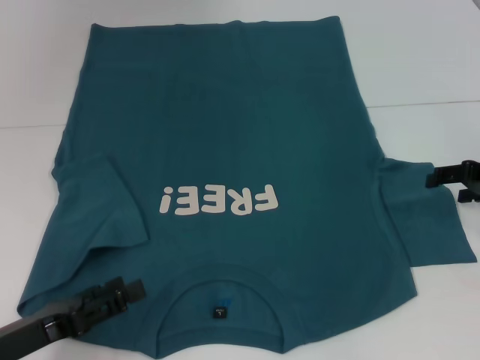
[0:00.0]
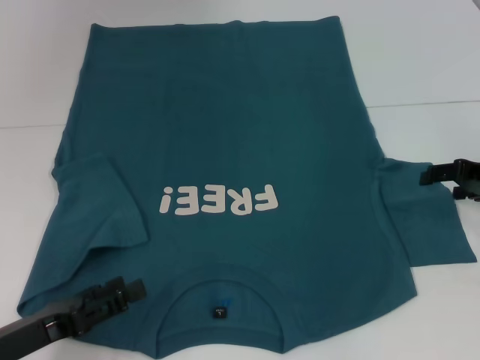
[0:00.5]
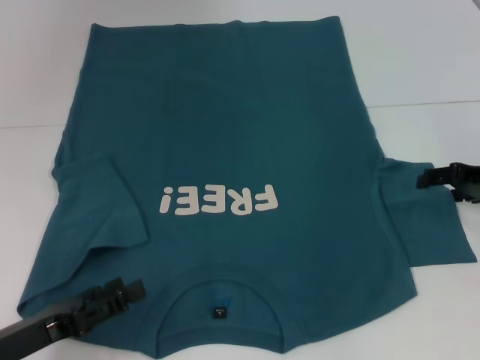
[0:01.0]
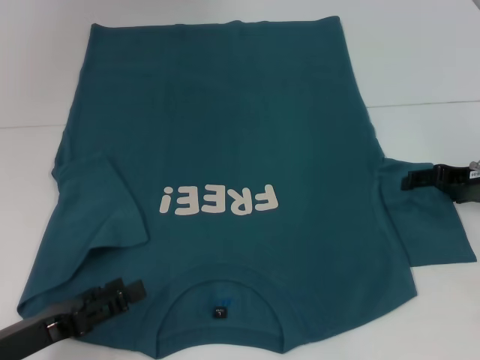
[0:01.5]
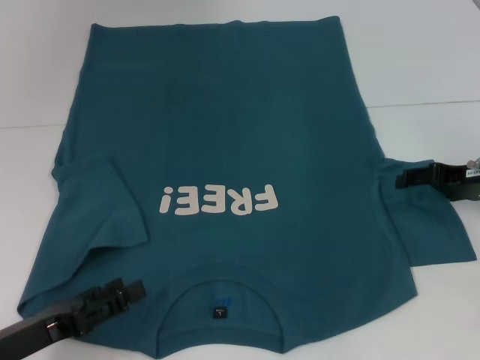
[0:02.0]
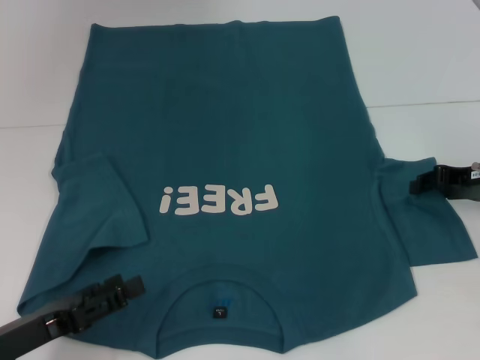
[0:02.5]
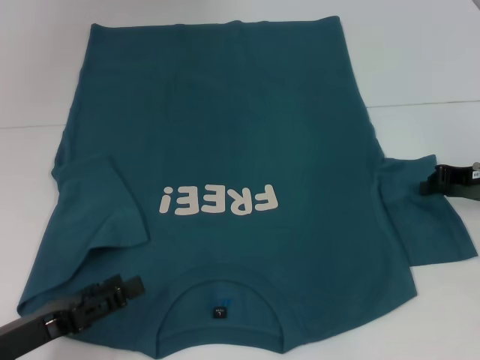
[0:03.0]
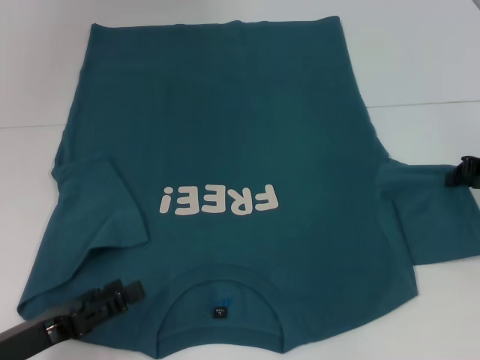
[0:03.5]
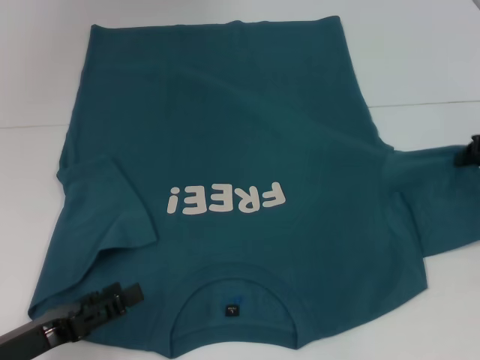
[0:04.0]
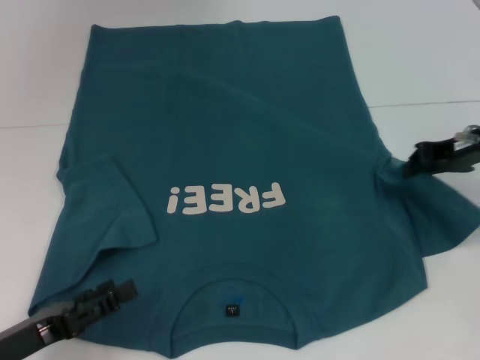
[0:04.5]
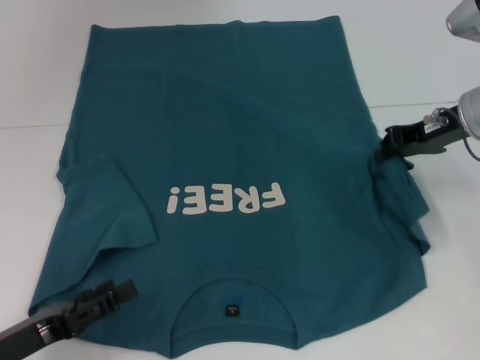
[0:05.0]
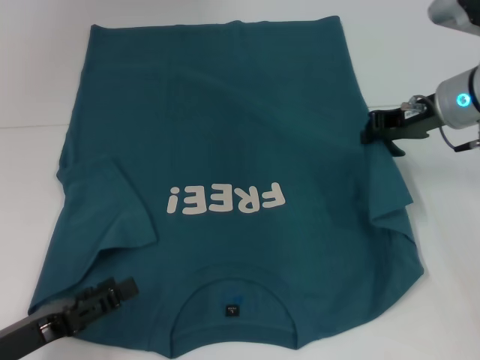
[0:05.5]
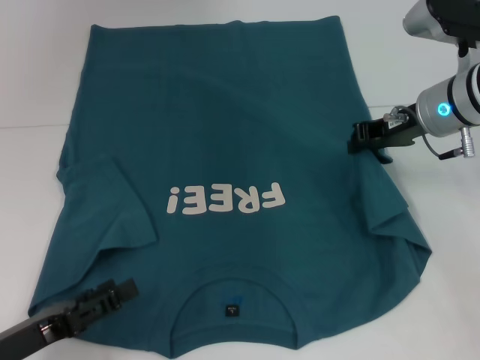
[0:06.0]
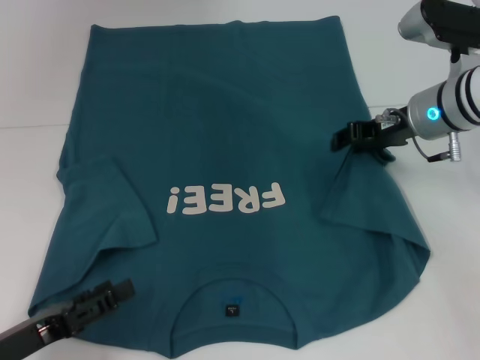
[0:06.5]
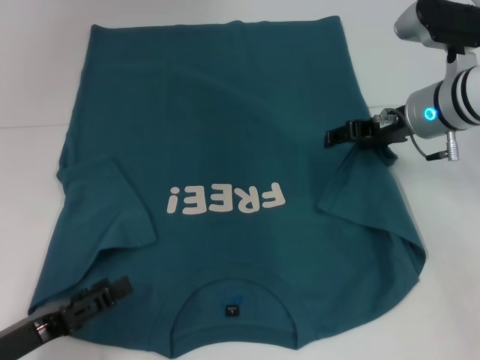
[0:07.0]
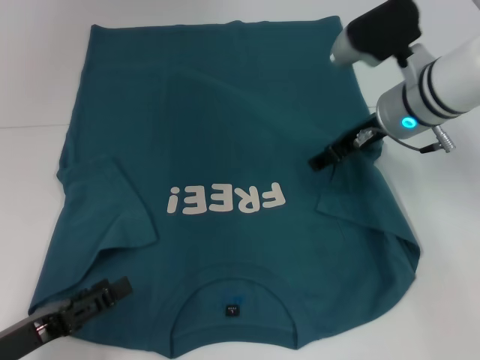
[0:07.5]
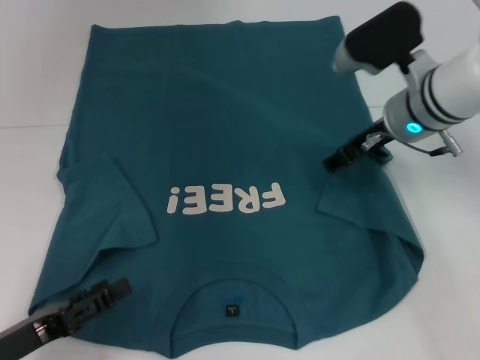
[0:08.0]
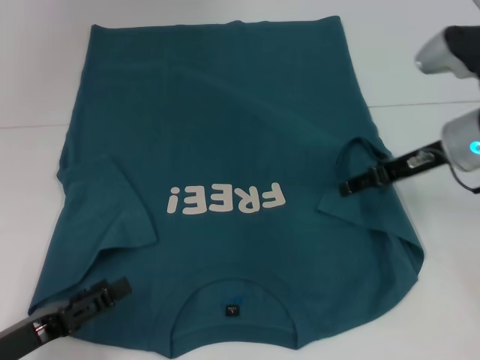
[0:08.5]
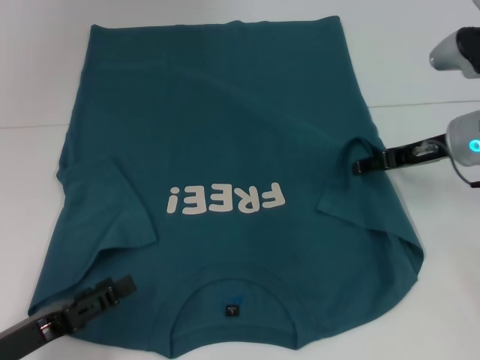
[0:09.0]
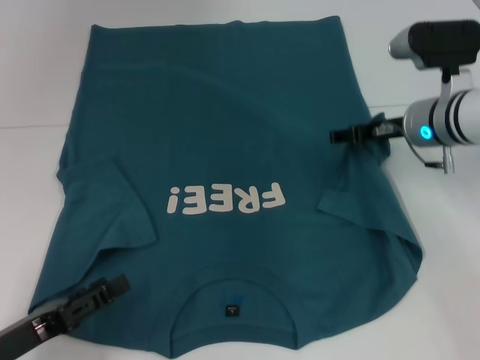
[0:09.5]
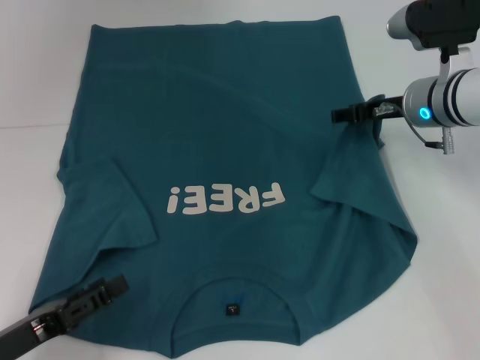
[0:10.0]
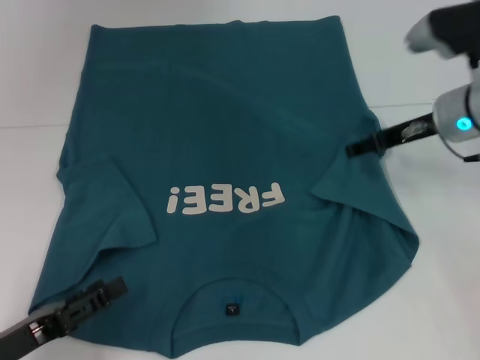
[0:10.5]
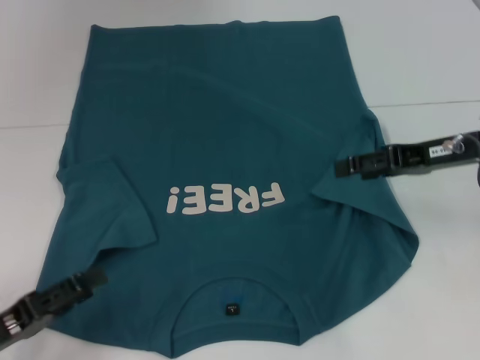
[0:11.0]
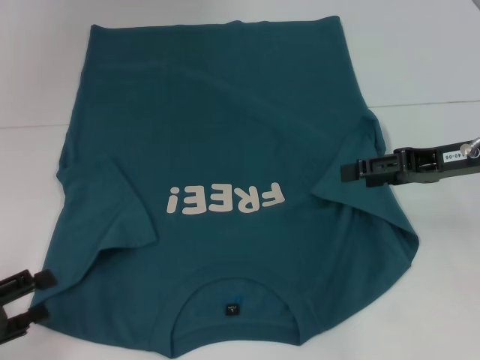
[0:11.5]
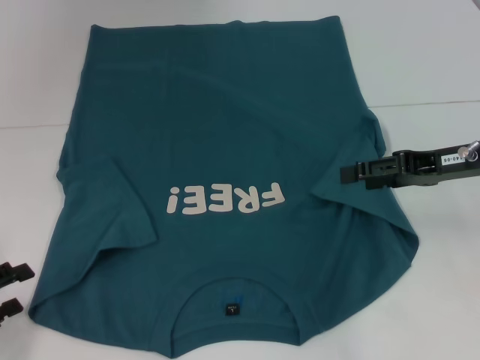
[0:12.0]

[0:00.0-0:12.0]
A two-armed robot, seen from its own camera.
Step, 0:00.0 to 0:10.0: Fold the bottom right sleeve to the right.
0:00.0 to 0:02.0: The grippers move only a little.
0:02.0 to 0:04.0: The right gripper closes.
0:04.0 to 0:06.0: The right gripper moves to the left, about 15 cm.
0:06.0 to 0:08.0: The right gripper opens its fingers.
0:10.0 to 0:12.0: The right gripper moves backward and to the right, some 10 cm. Meanwhile the left gripper shifts approximately 10 cm to the left.

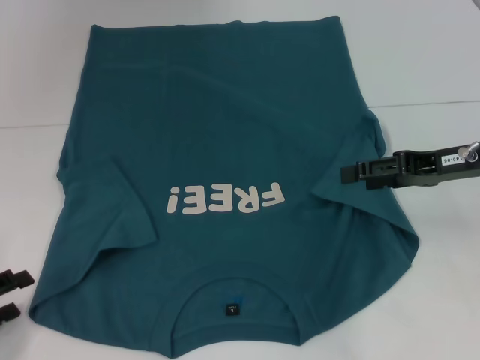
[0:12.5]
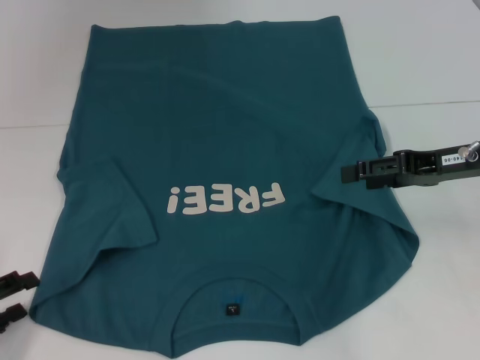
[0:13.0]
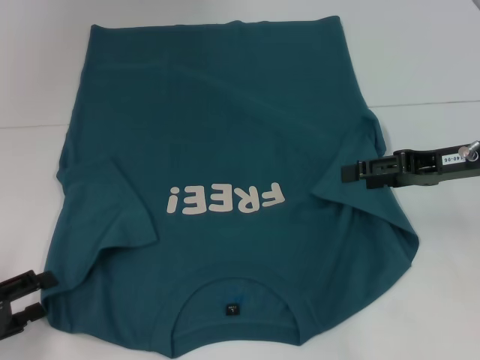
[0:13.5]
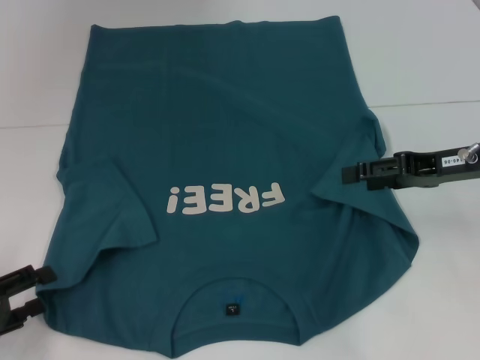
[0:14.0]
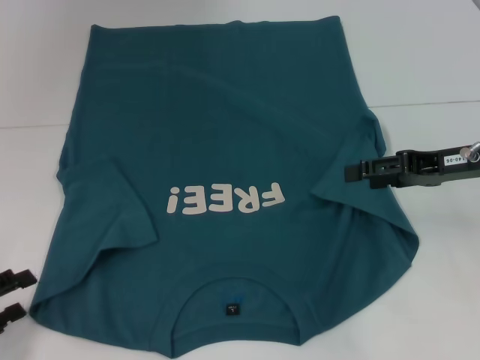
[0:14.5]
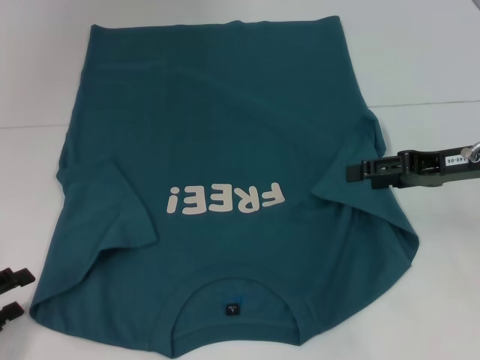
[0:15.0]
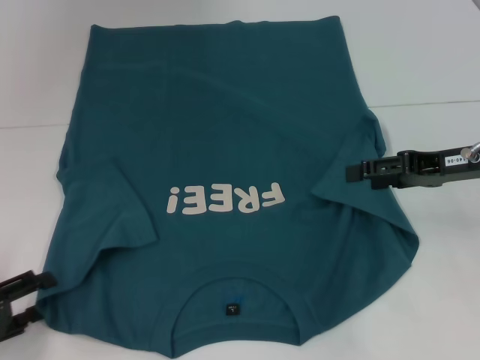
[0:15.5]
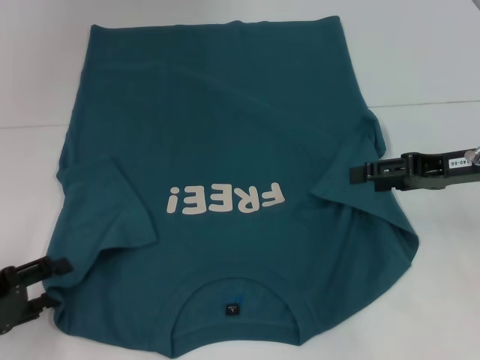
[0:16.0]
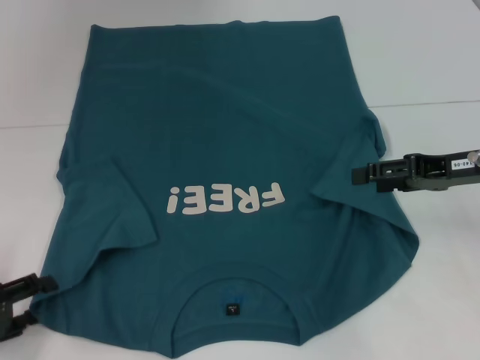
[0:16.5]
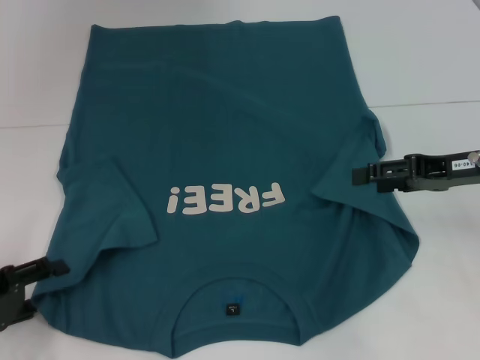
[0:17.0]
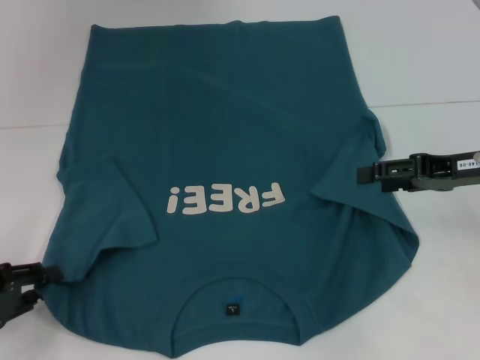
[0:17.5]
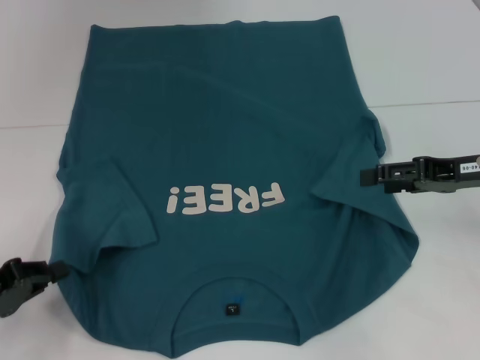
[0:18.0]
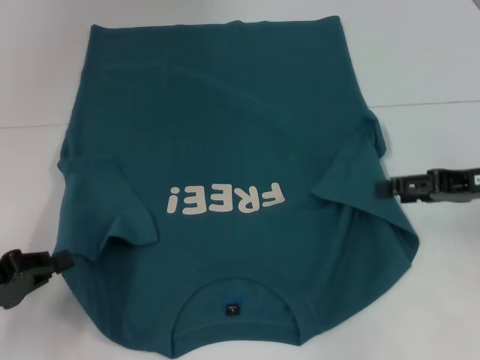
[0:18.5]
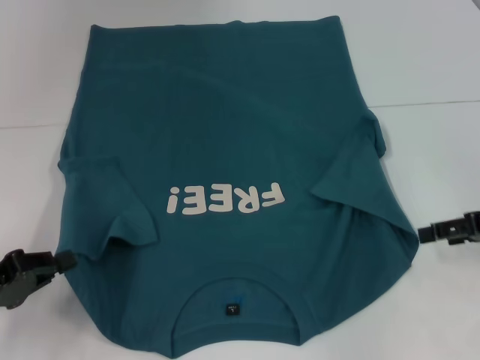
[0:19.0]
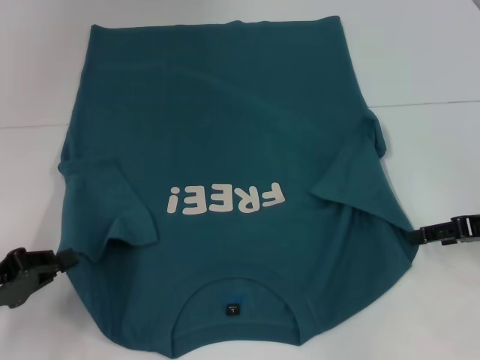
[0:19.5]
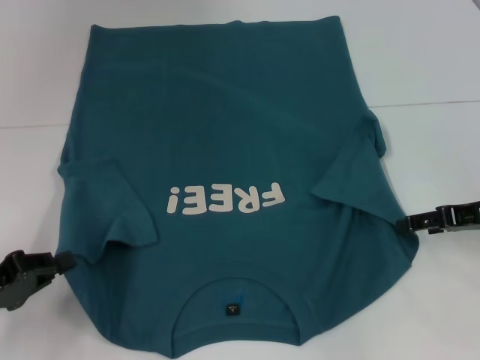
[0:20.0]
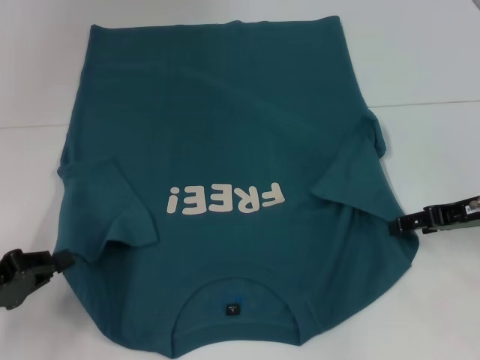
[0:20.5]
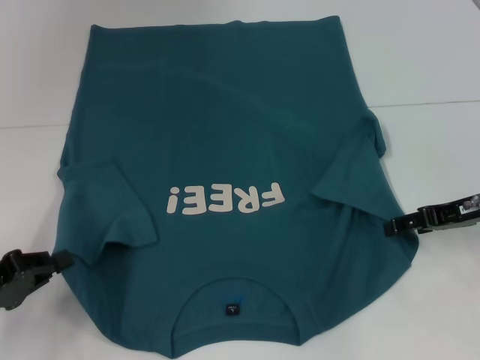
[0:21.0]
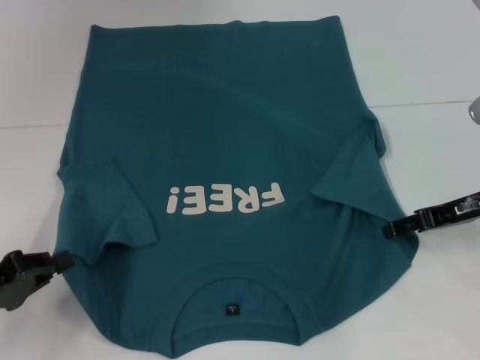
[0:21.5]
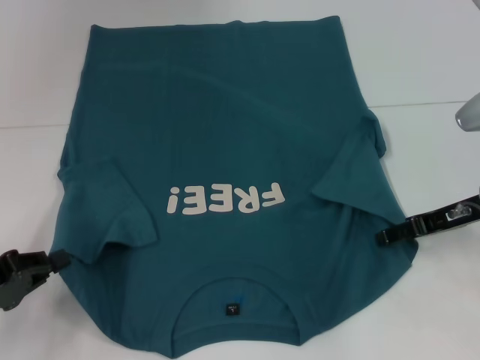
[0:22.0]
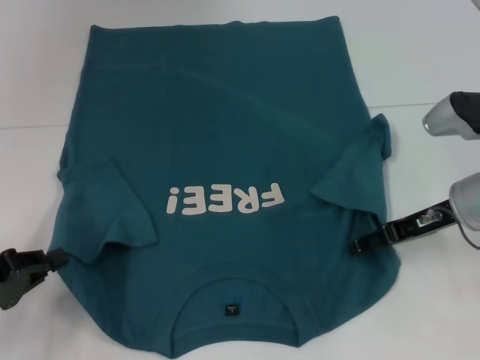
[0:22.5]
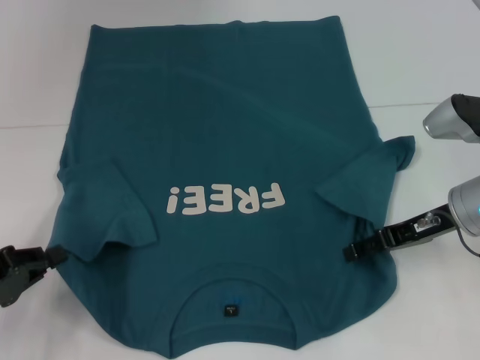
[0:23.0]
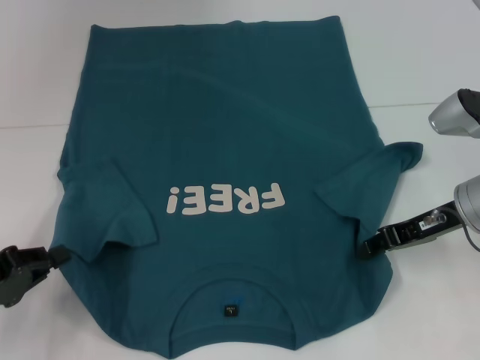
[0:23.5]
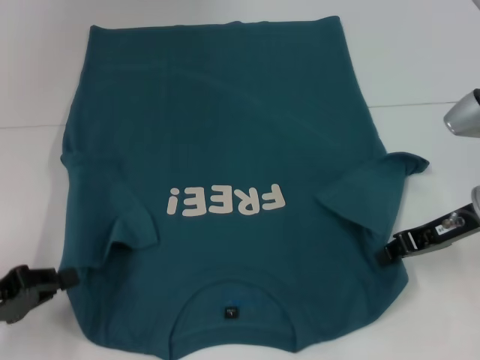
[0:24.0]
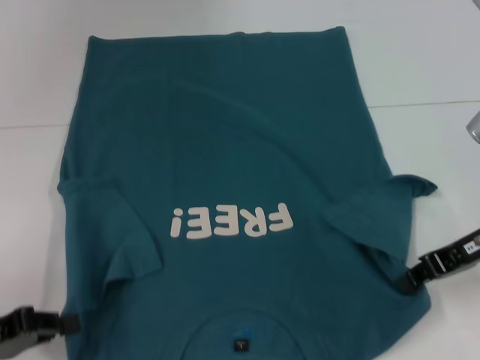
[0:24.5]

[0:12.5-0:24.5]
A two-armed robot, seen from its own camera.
Step, 0:12.5 to 0:18.0: Grab the bottom left corner with your left hand.
Step, 0:18.5 to 0:23.5: Grab the bottom right corner with your right hand.
0:14.5 to 0:16.5: The grippers make only small movements.
0:16.5 to 0:18.5: The left gripper closes up.
0:18.5 to 0:20.5: There are only small adjustments of the grippers.
0:20.5 to 0:22.5: The right gripper heads to the left, covering some 5 cm.
0:22.5 to 0:24.5: The right gripper shifts by approximately 5 cm, and closes up.

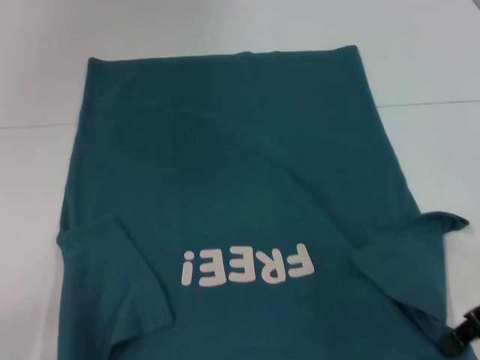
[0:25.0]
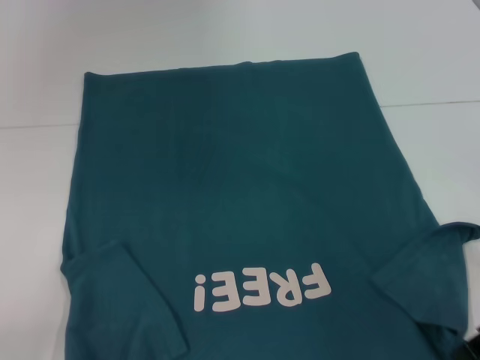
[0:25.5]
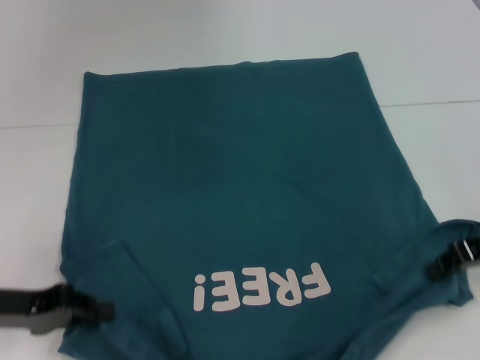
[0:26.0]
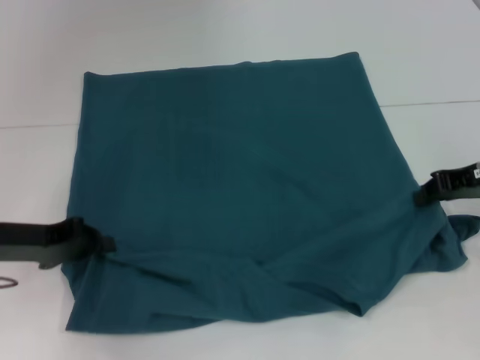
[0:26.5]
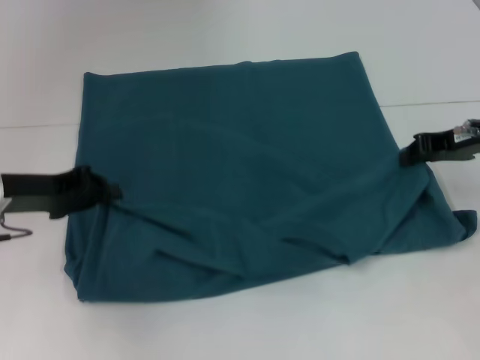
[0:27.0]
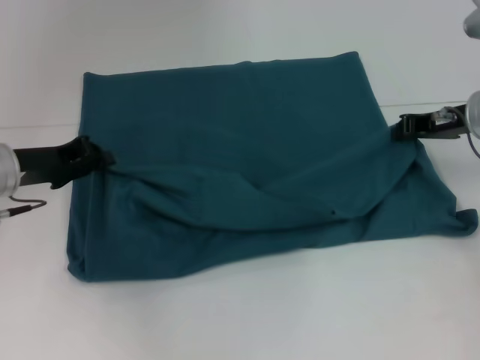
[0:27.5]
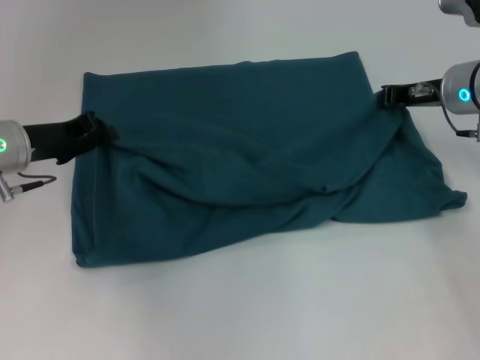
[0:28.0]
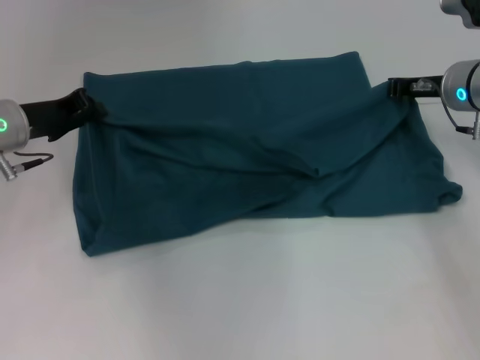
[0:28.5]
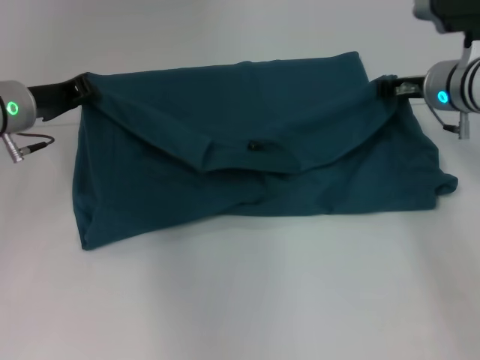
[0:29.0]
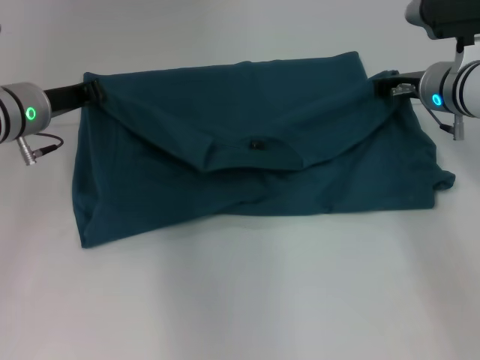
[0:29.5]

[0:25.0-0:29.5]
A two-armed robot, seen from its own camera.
0:25.0 to 0:27.0: The left gripper goes roughly 15 cm forward and to the right. Meanwhile the right gripper travels forward by roughly 10 cm.
0:27.0 to 0:29.5: The left gripper heads forward, covering approximately 10 cm. The right gripper shifts approximately 10 cm forward and to the left.
